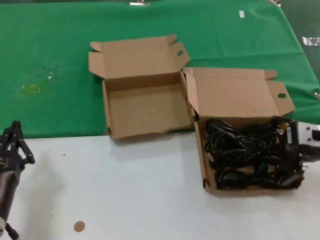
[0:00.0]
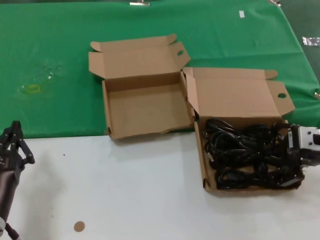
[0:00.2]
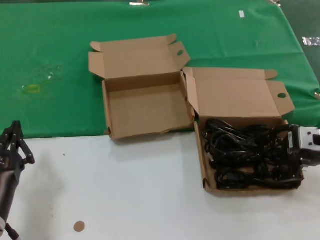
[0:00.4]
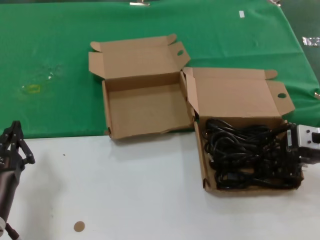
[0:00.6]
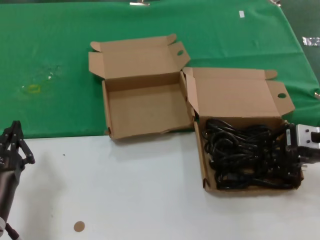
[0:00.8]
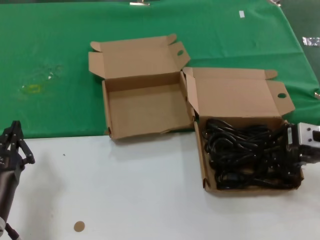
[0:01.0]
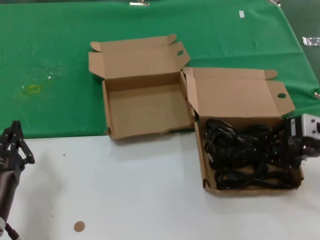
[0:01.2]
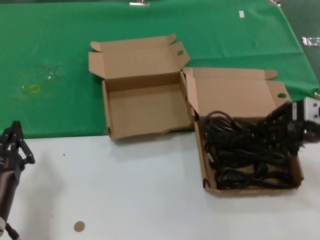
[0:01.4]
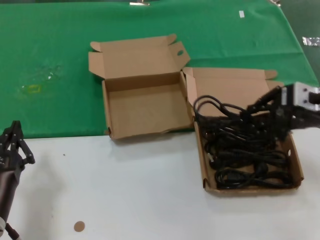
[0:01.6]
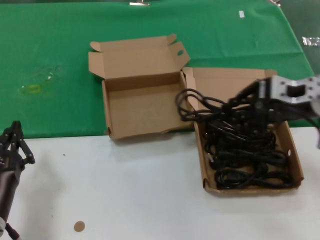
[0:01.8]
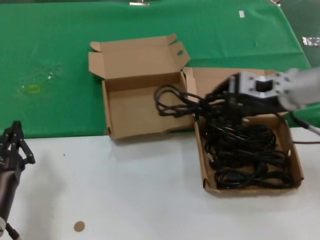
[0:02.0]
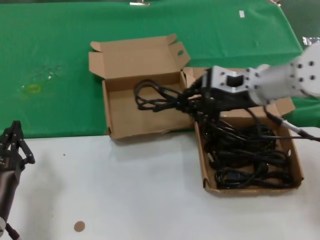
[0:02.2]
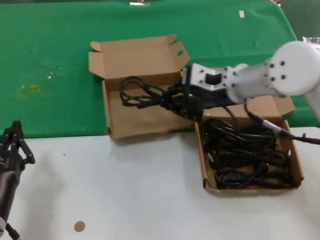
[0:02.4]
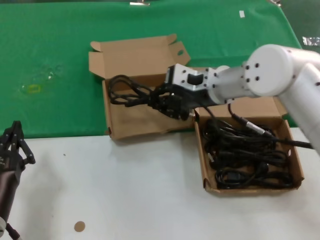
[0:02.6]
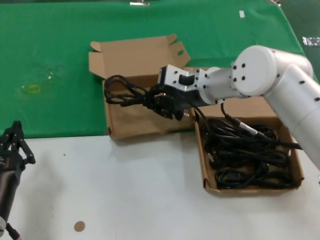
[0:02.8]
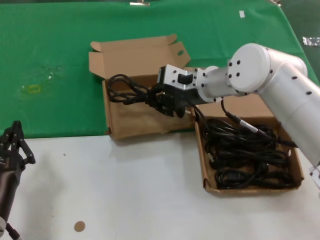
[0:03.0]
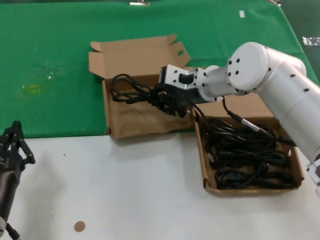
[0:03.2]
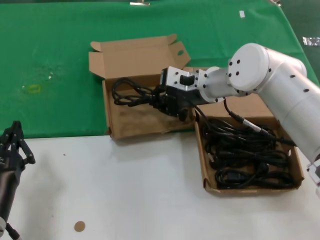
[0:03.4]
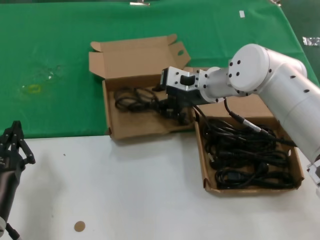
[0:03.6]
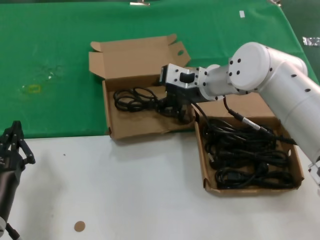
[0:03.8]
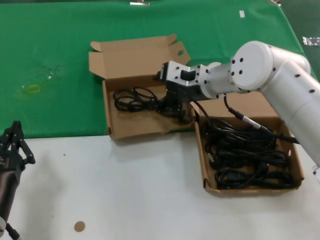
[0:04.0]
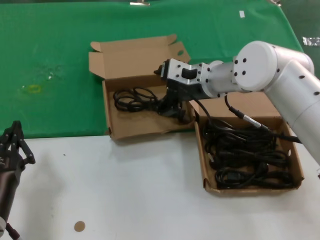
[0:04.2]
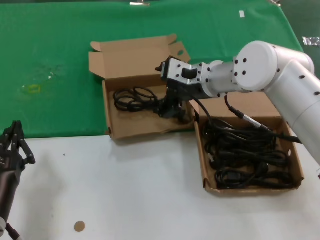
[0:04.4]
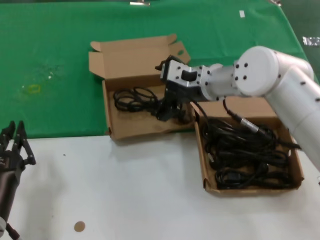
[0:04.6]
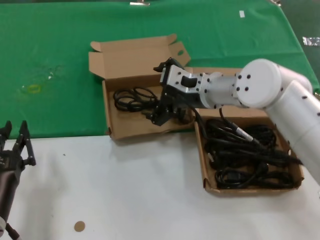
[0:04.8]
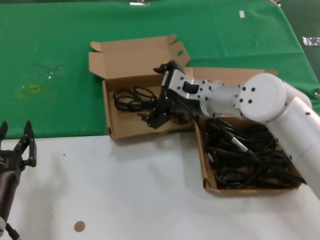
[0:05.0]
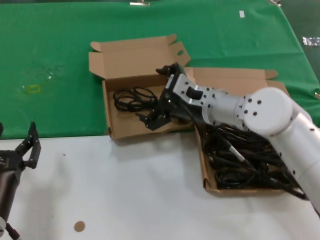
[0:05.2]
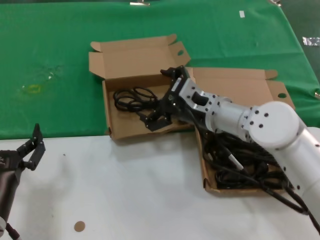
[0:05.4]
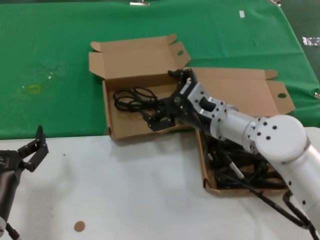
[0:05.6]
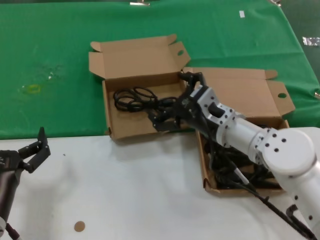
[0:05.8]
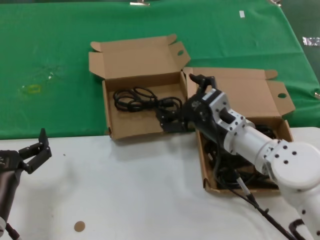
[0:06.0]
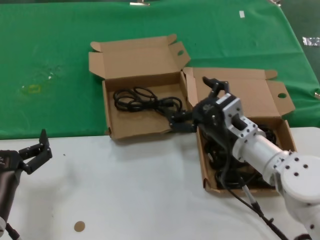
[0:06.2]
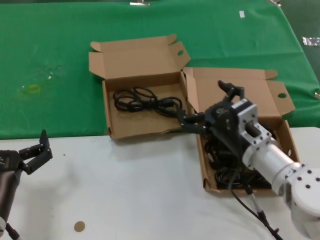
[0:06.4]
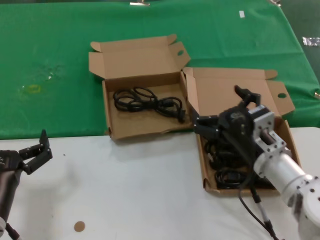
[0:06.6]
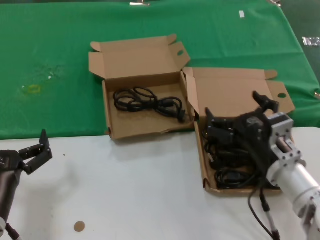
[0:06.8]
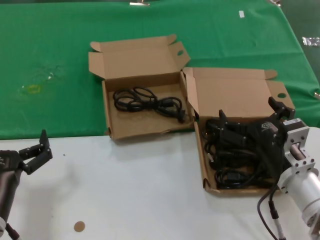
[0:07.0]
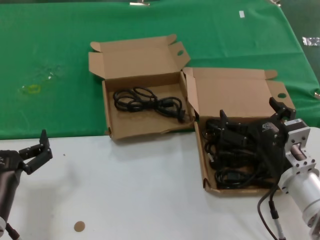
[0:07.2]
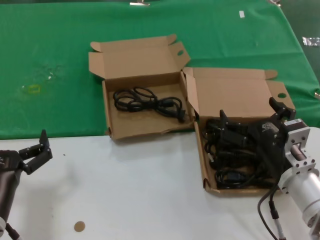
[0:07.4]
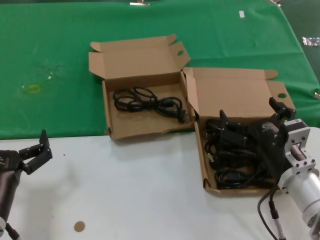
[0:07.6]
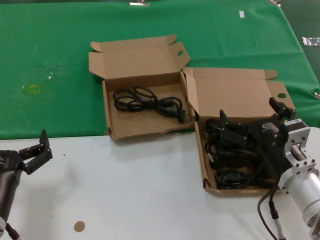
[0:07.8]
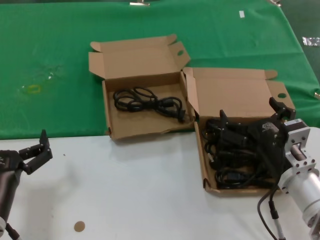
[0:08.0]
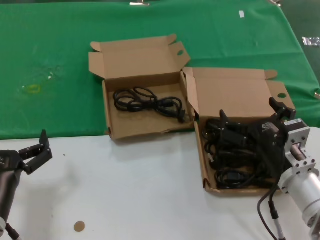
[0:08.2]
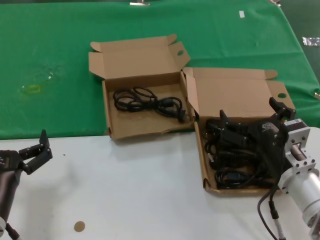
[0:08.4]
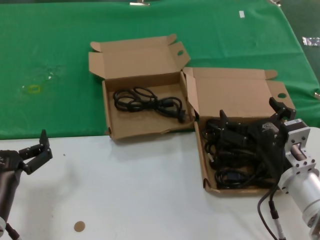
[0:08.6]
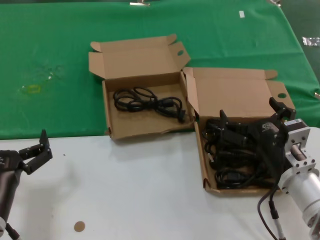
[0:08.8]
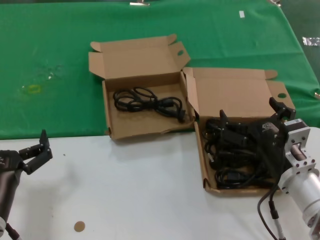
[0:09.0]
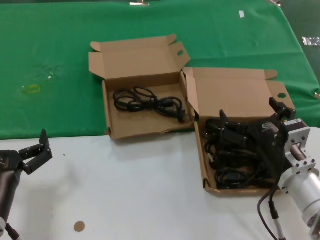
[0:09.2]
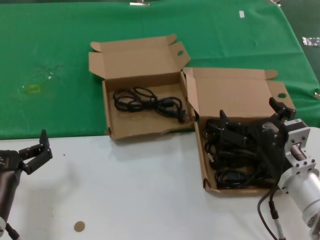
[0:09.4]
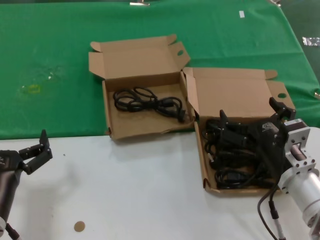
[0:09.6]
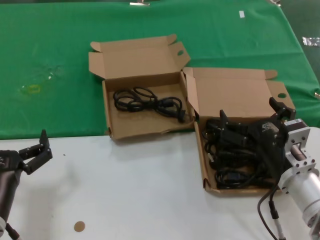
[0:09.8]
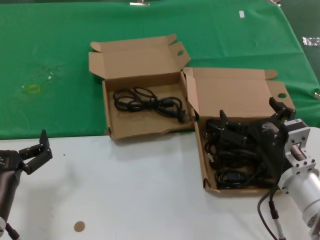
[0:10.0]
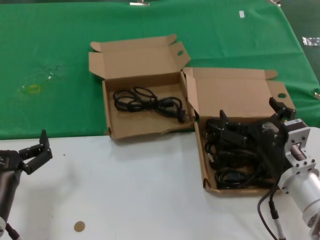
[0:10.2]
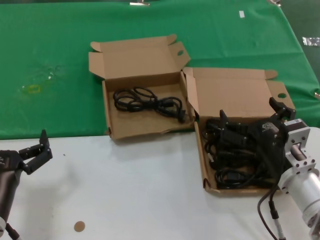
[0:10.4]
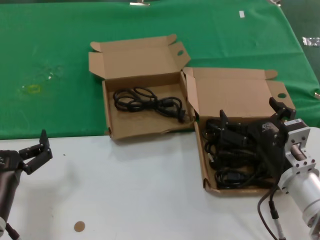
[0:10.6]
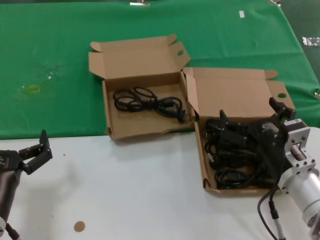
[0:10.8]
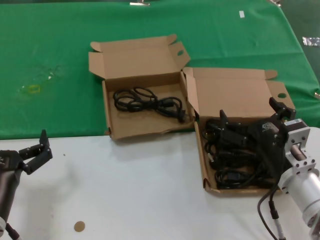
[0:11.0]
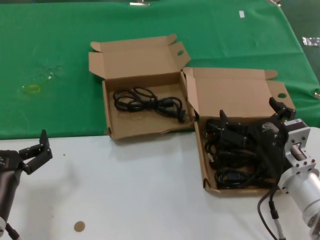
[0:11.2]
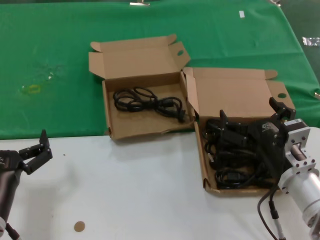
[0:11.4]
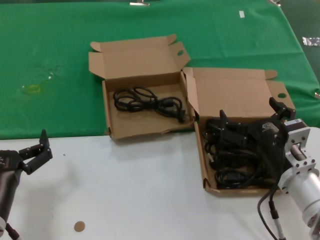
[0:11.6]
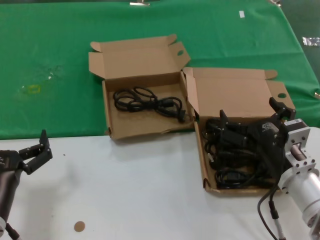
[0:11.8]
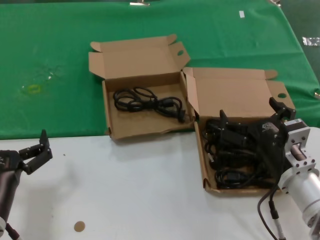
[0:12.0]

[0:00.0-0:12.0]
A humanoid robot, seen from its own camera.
Task of the whole recording: take the parts from the box containing them and put them into an empty box.
Step, 0:00.8 to 0:03.6: Place the data cable in the another box.
0:00.0 to 0:01.6: The right hand goes some 5 cm upward.
0:01.6 to 0:03.0: The right hand shifts about 25 cm to the left and forward.
0:03.0 to 0:04.4: Neither hand changes place.
0:04.4 to 0:06.0: The right hand travels downward and backward by about 15 cm.
0:06.0 to 0:07.6: The right hand shifts approximately 10 cm backward and to the right.
0:07.6 to 0:12.0: Both hands stay put.

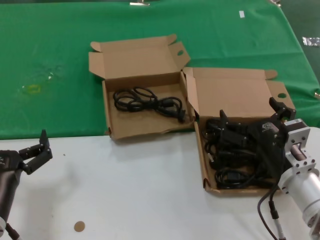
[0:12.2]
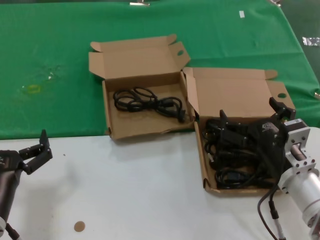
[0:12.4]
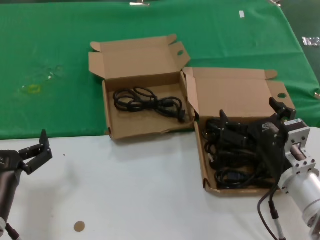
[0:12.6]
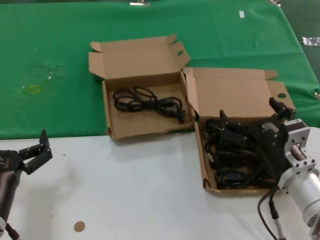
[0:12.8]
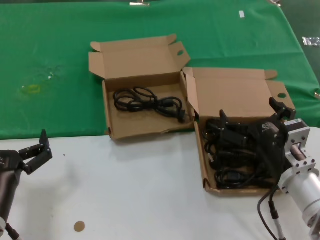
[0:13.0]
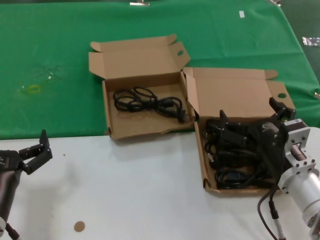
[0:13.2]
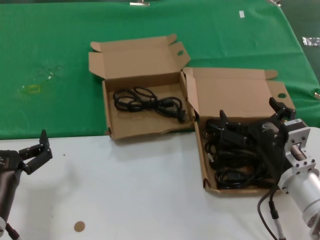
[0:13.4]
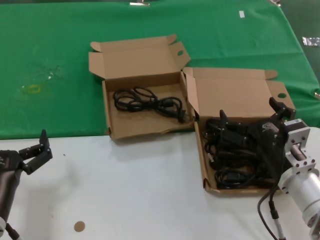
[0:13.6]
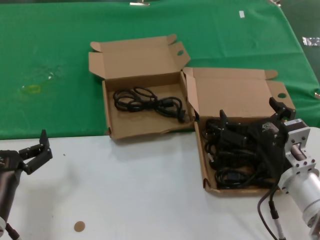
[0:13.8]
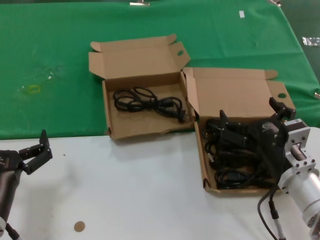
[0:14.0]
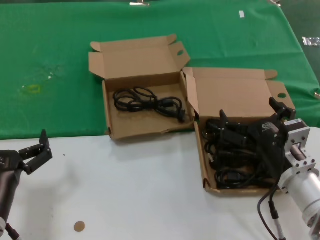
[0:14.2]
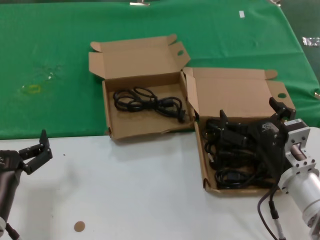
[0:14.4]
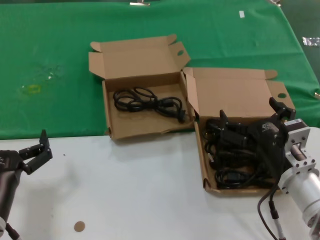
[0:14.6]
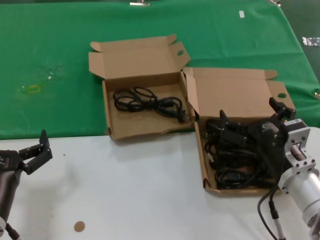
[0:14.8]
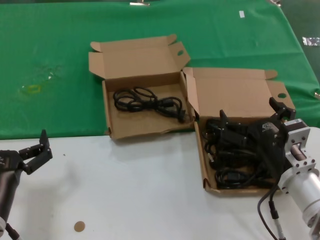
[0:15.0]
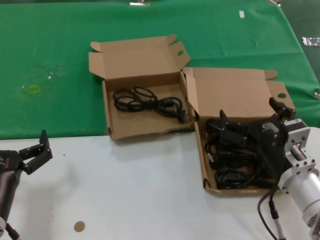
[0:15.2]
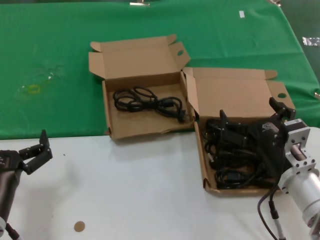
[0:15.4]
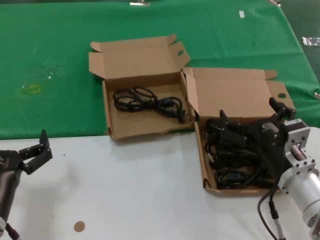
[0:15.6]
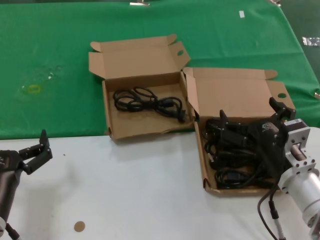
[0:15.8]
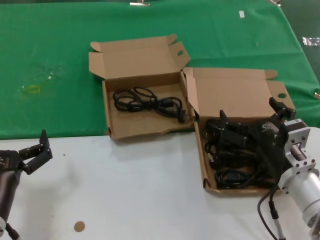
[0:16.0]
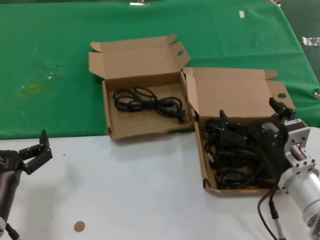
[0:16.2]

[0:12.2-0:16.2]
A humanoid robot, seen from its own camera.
Task of the whole recording: take the parts from the box containing them and put them into an empty box.
0:12.2 to 0:16.2: Both hands stay put.

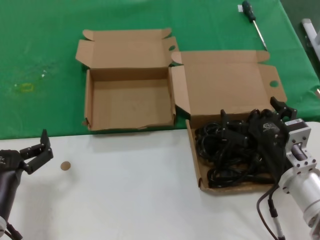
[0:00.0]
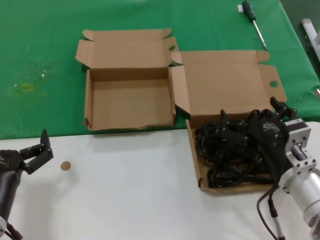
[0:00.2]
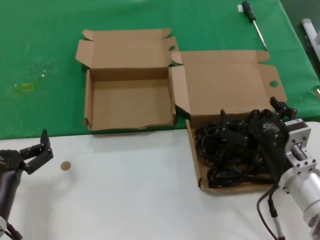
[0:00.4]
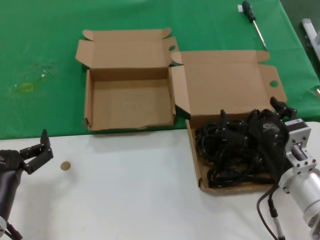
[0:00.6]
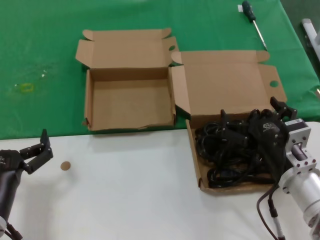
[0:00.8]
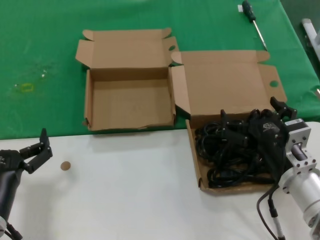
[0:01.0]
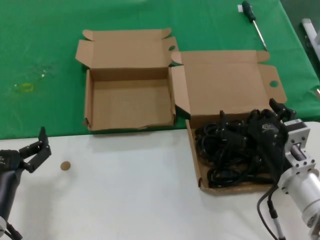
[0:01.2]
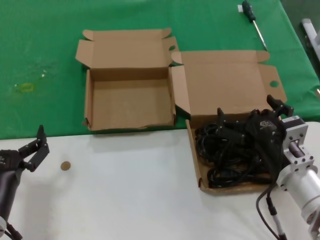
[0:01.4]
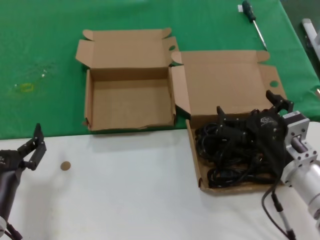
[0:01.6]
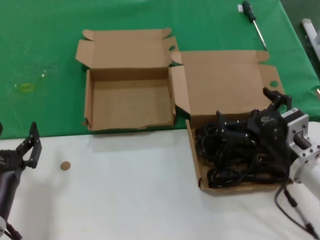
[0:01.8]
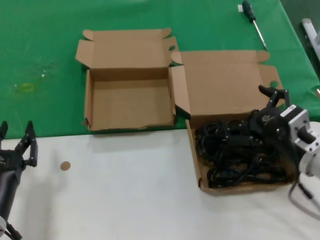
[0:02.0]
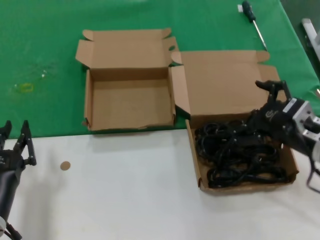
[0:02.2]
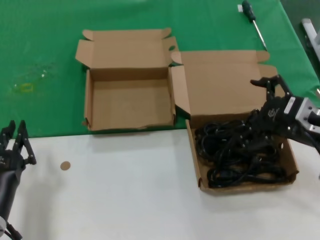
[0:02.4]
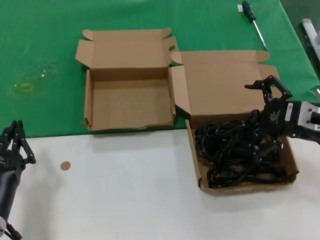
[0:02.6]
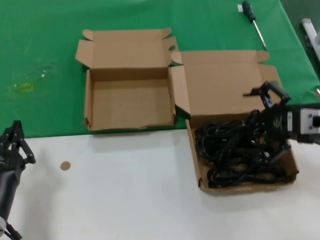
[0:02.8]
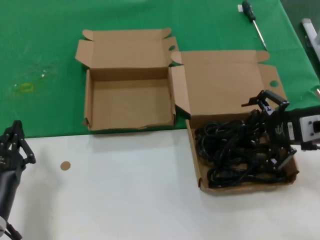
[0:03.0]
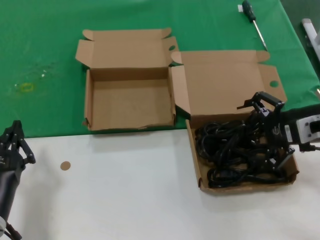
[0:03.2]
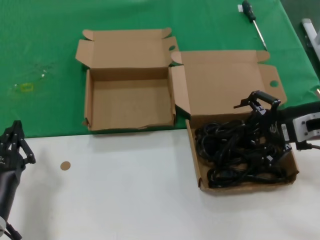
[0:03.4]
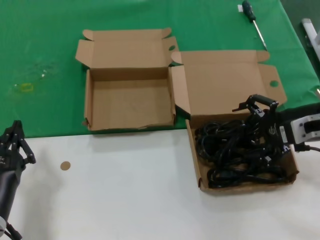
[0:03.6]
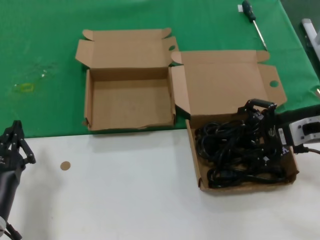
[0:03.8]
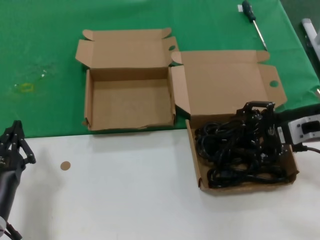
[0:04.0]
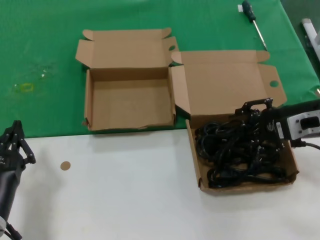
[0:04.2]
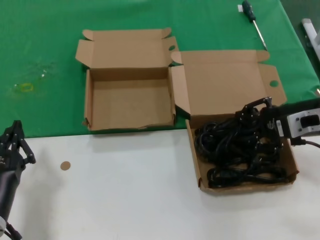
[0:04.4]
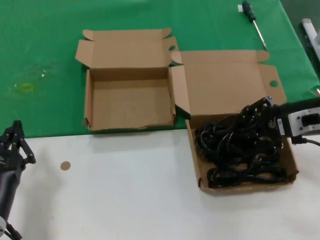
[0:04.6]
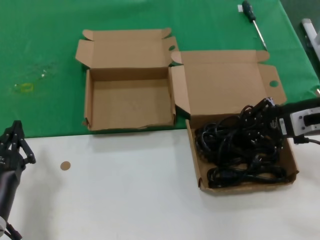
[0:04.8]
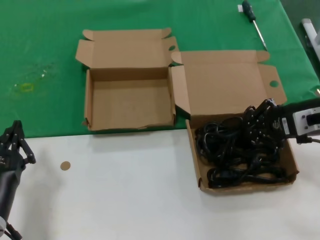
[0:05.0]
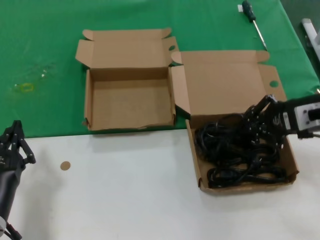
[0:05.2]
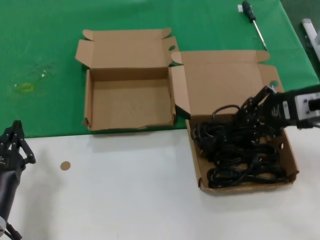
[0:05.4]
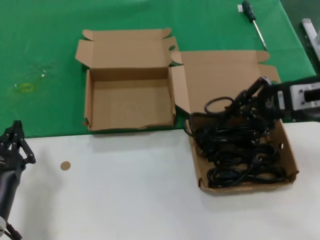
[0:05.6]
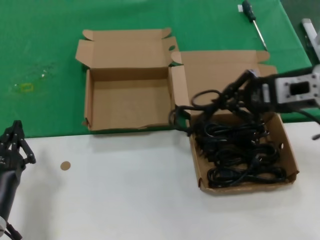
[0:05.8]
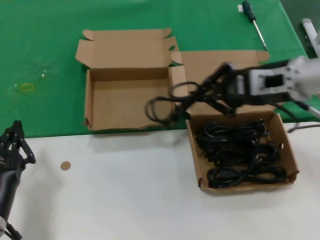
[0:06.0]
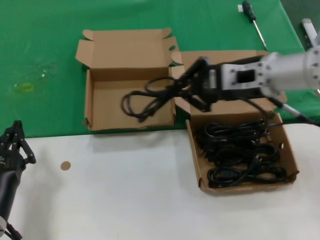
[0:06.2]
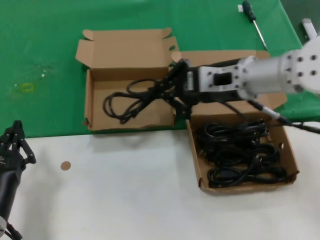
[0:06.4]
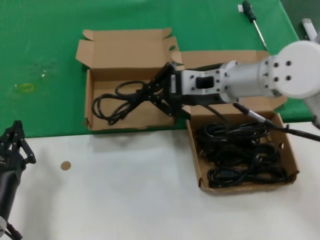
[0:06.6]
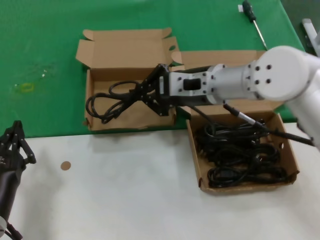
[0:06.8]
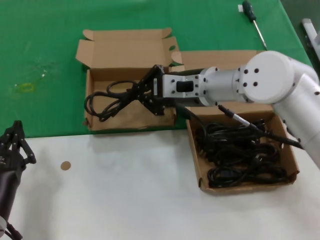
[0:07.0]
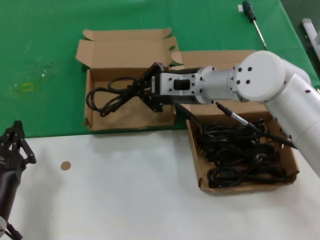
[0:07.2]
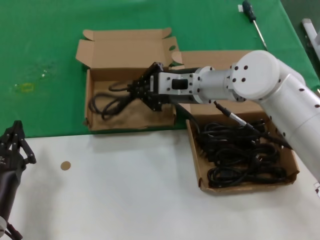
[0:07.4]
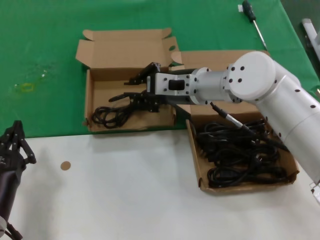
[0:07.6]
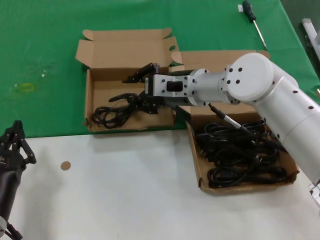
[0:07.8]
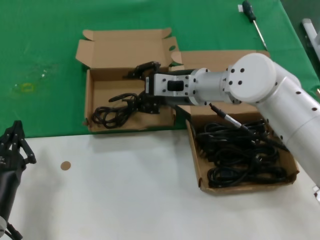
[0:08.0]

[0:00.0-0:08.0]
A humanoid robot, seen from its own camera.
Task of the whole recording: take the parts from the box containing them and put them into an empty box.
Step, 0:00.0 to 0:04.8: Grasp the data cable.
0:00.0 to 0:01.6: There are only small adjustments of the hands.
0:01.6 to 0:03.2: The right hand moves upward, to the right and forward, roughly 20 cm.
0:03.2 to 0:04.8: The hands stay close to where they were, moving slightly.
0:04.8 to 0:06.4: The right hand is displaced to the left and upward by some 15 cm.
0:06.4 to 0:08.0: The right hand travels to the left, forward and downward by approximately 10 cm.
